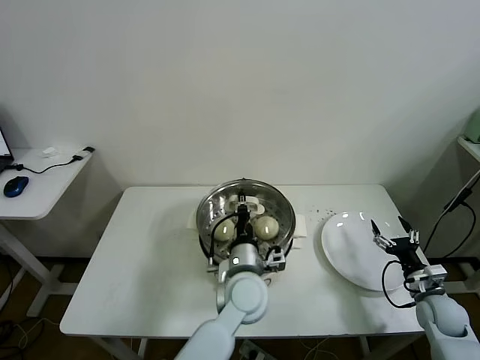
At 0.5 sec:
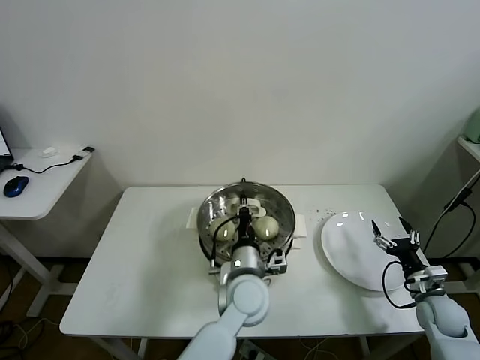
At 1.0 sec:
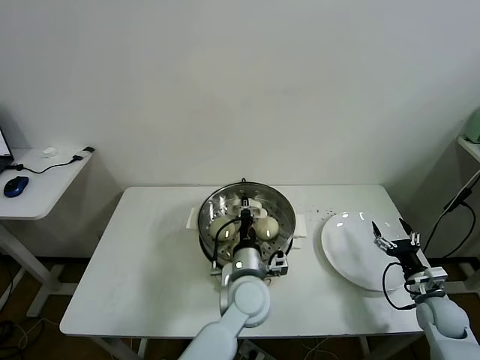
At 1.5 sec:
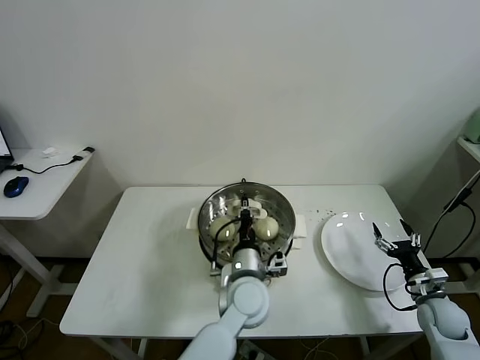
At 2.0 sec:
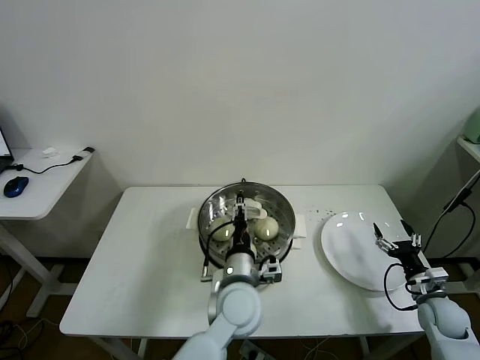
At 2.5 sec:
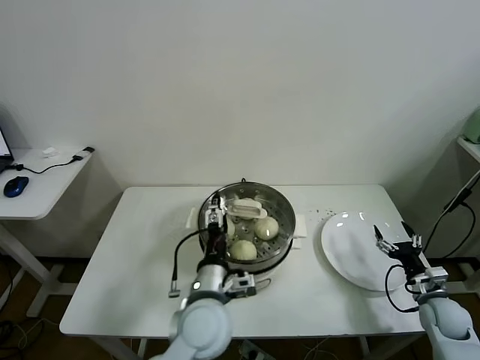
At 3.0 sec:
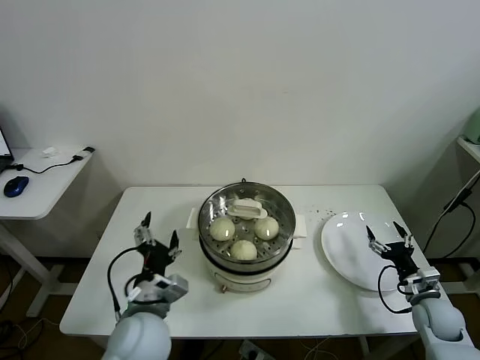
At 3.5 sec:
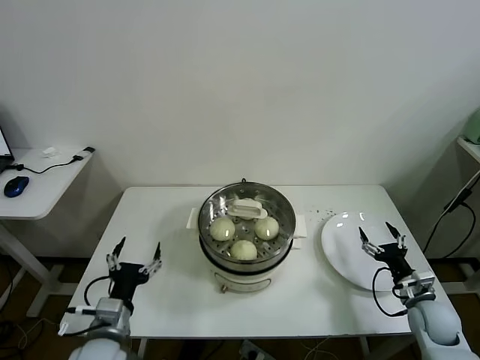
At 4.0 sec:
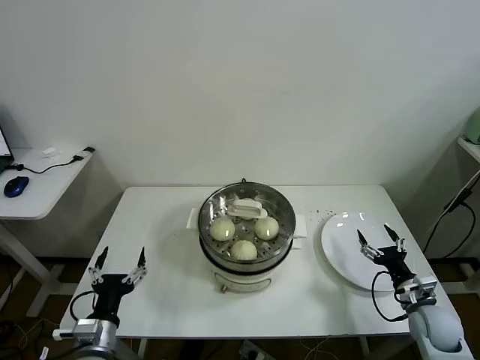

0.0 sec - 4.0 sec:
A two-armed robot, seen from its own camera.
Task of the whole recording: take steamed baozi put them in steamer.
Step, 0.0 sec - 2.0 sec: Place the pot lid on the steamer with left gripper.
0.0 sec - 2.0 sec: The left gripper opens.
2.0 sec - 4.0 sec: The right gripper changes place by some 5 cm; the left gripper shifts some 30 cm to the left and backward, and opens.
